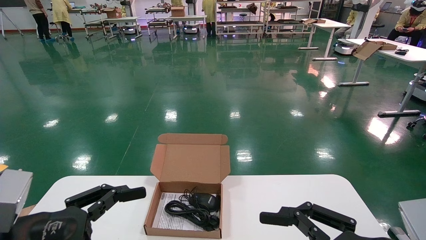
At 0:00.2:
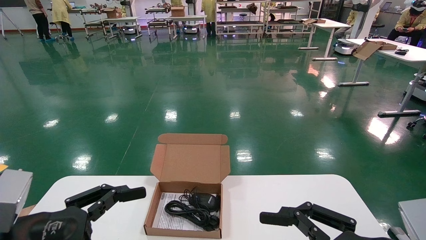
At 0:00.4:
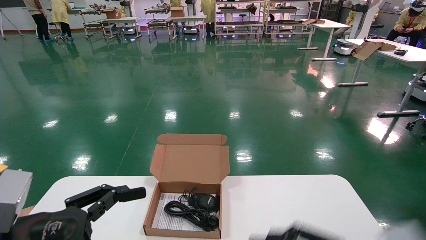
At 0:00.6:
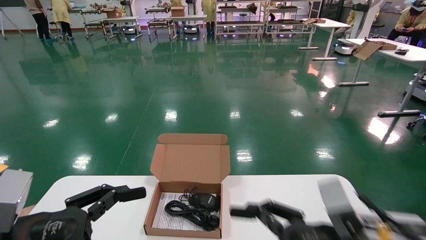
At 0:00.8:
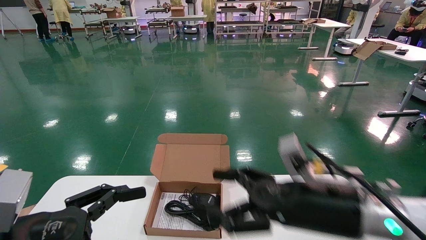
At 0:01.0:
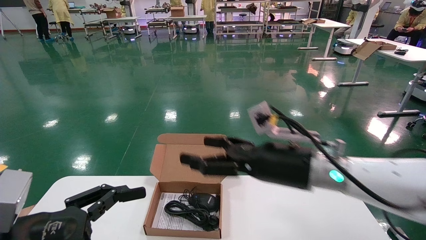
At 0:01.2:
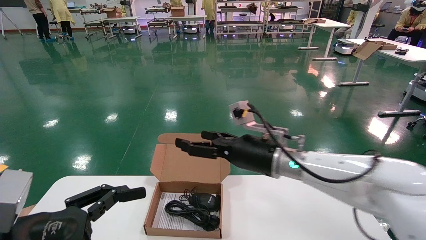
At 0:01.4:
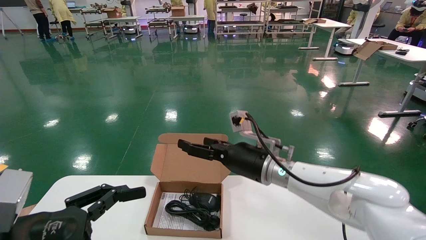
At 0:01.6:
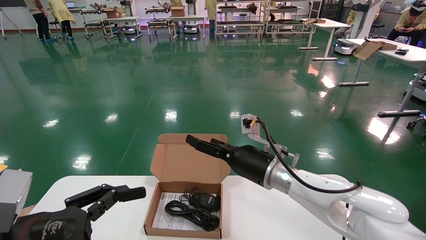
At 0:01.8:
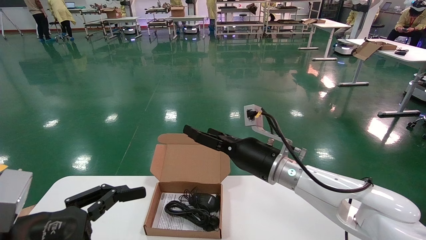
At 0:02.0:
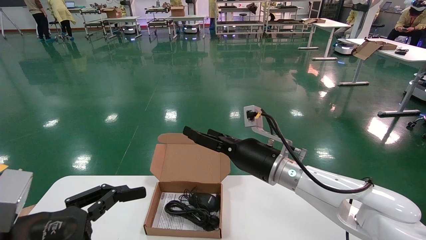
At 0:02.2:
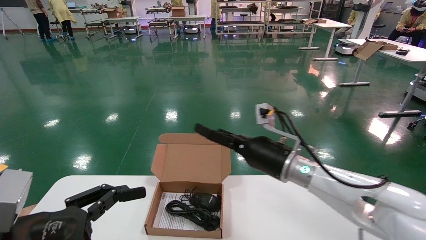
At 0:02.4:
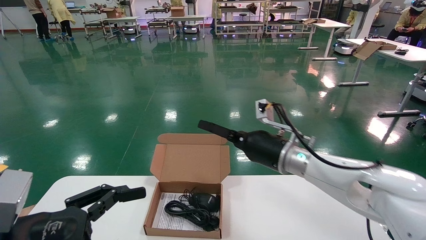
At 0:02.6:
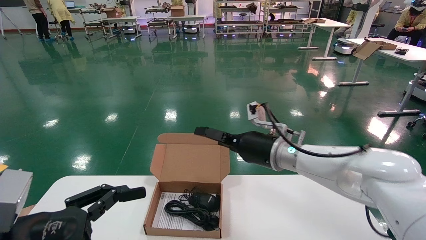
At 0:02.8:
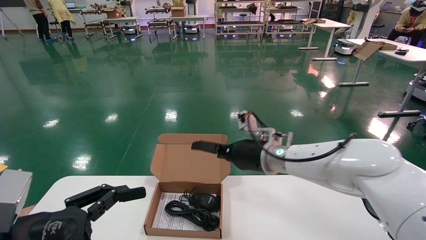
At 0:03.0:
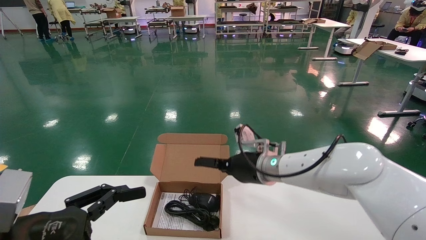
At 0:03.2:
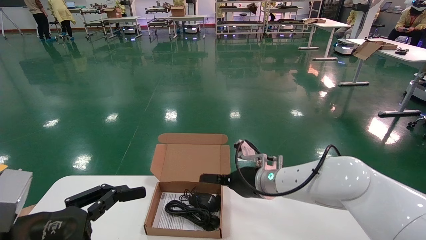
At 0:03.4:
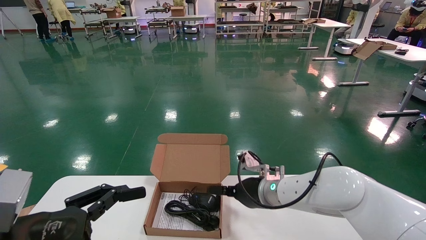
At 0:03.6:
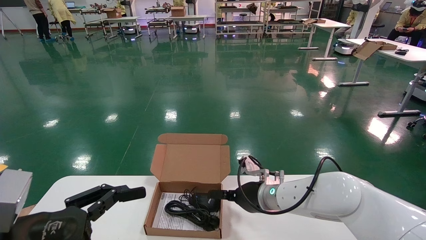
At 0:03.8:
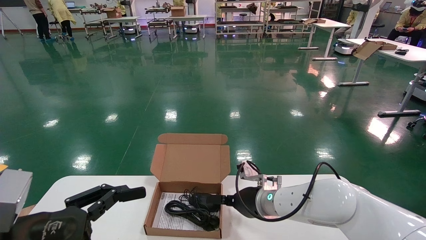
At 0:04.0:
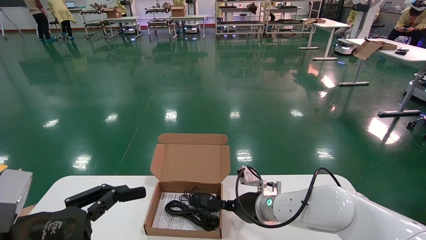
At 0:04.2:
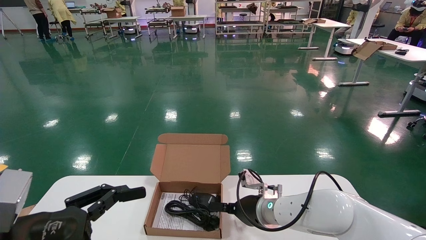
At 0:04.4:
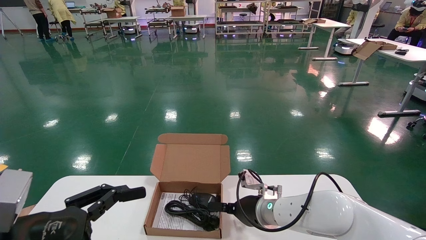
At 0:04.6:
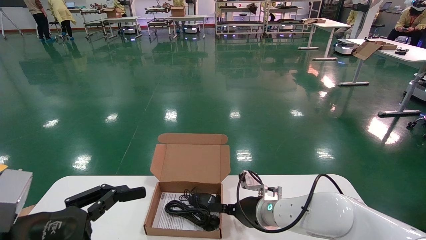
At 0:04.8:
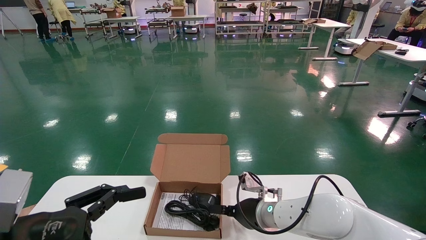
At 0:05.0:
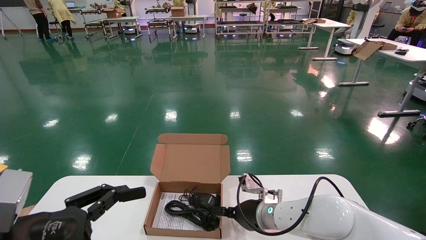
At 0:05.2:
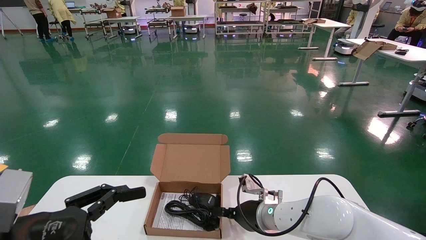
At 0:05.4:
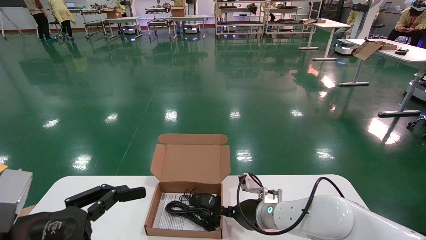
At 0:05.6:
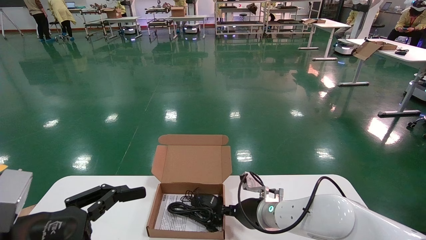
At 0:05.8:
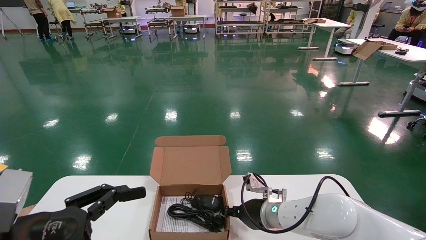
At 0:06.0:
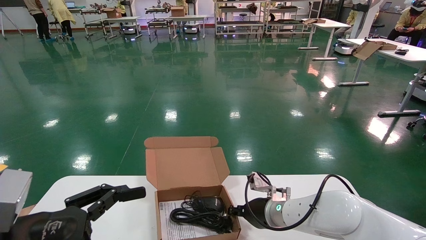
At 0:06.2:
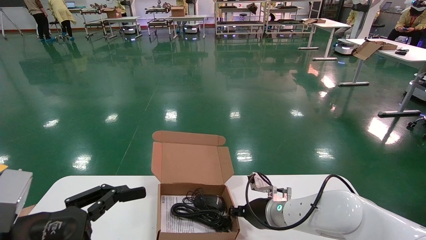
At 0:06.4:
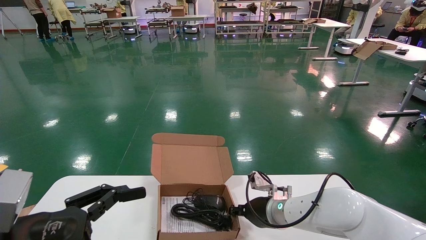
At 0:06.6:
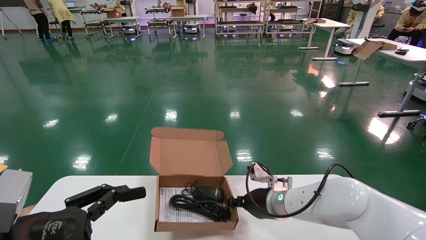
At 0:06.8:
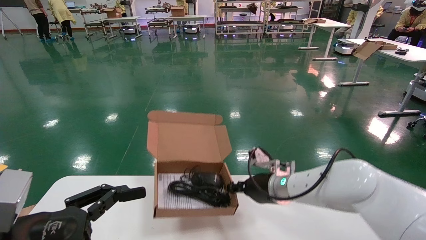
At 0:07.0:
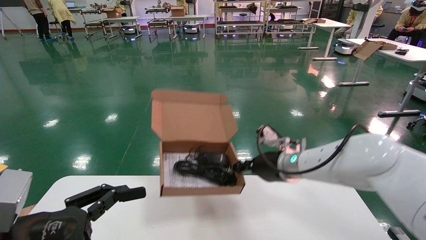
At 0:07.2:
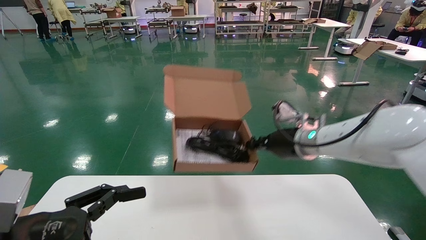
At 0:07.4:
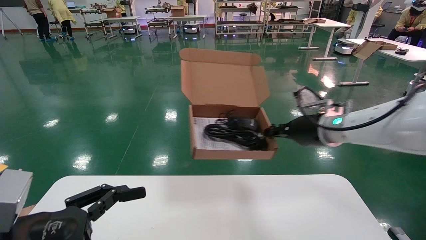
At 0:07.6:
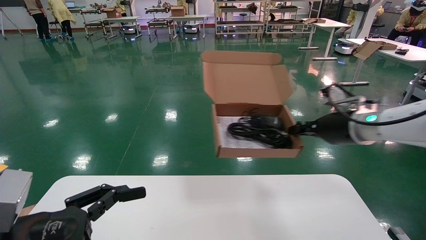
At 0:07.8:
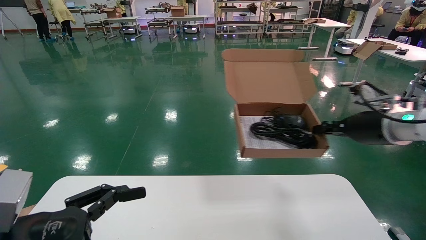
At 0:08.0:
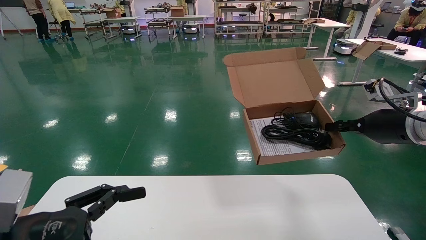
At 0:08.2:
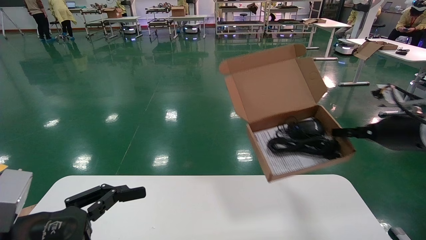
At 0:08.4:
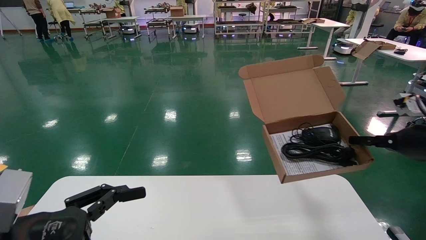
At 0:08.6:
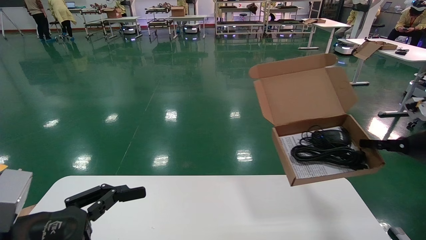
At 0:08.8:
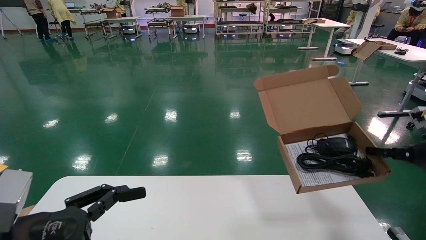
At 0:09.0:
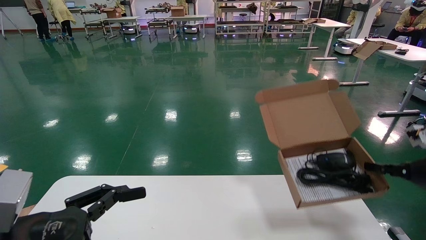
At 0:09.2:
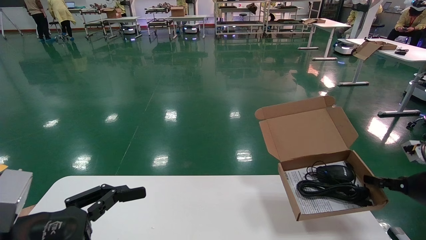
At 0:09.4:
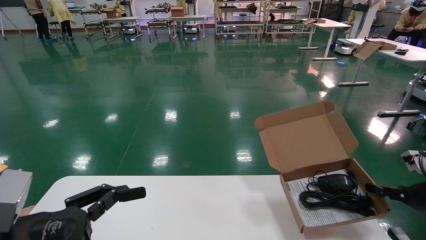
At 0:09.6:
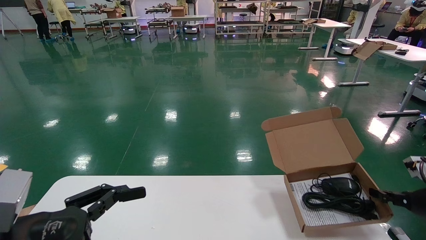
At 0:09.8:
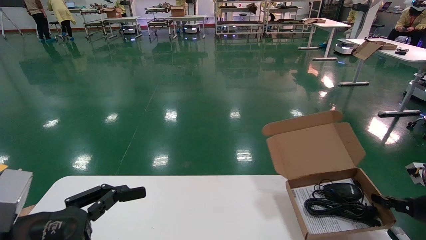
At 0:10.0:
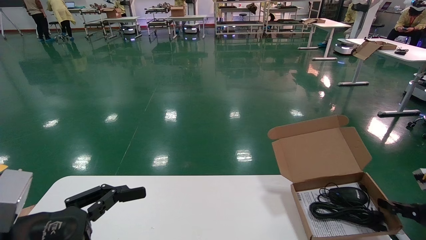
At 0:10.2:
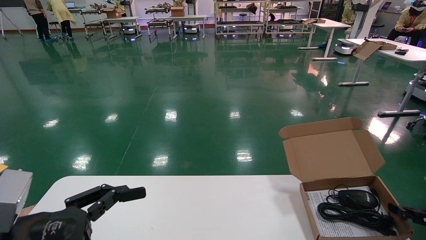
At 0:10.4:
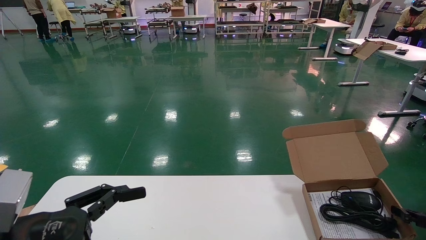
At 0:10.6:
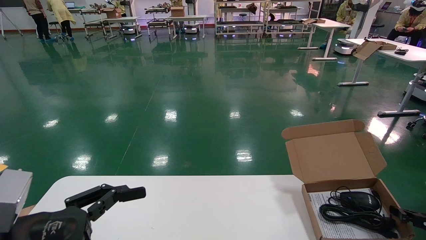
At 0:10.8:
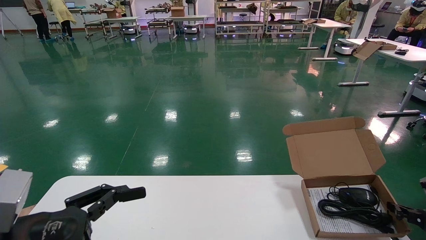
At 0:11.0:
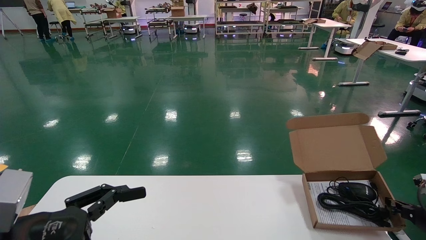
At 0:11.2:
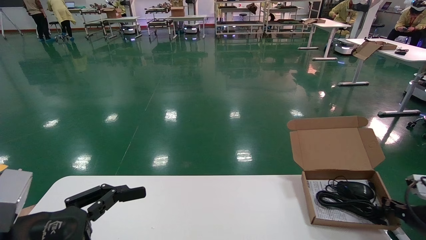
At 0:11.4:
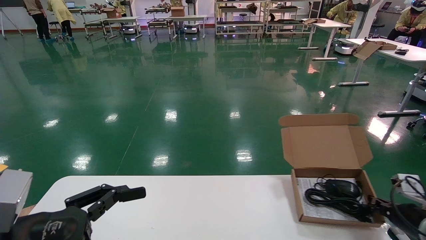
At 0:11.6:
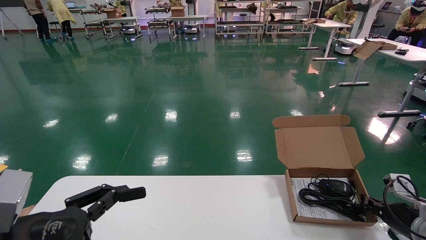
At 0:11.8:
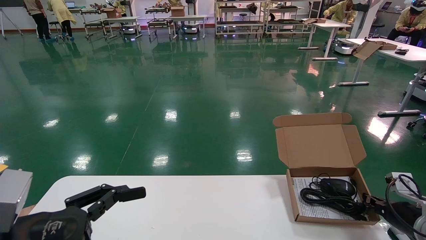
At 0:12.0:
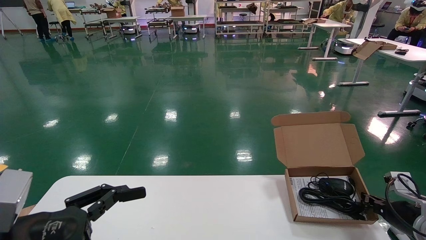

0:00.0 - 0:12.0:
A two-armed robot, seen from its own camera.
Task of the whole recording: move the position of the storage box with accessories on the table.
Step, 0:00.8 - 0:05.8: Grab and pick up the open mouse box from the accessory packaging area.
0:00.0 - 0:01.6: The right gripper moves forward and to the left, about 30 cm.
0:03.0 - 0:04.4: The right gripper shifts approximately 10 cm downward.
0:04.4 - 0:06.0: The right gripper closes up.
0:06.0 - 0:07.6: The right gripper travels upward and to the right by approximately 25 cm.
0:07.6 - 0:09.0: The right gripper travels to the right and downward by approximately 20 cm.
0:09.0 - 0:10.4: The right gripper goes roughly 15 cm downward and to the right.
0:10.4 - 0:12.0: The right gripper is displaced to the left and forward by roughly 10 cm.

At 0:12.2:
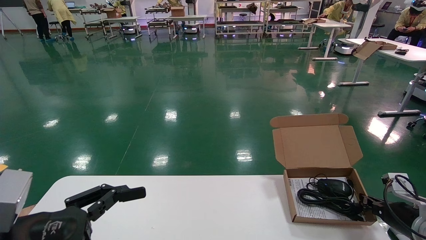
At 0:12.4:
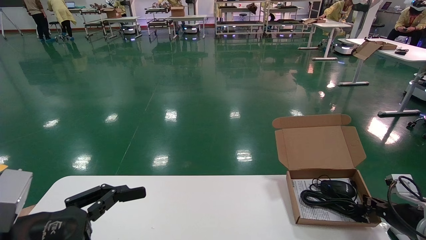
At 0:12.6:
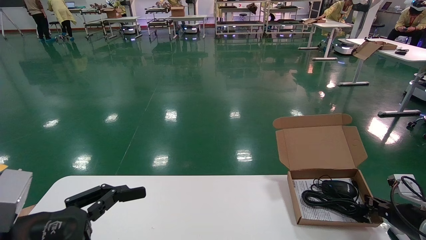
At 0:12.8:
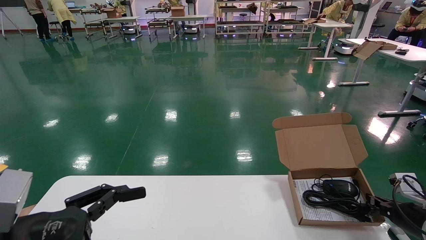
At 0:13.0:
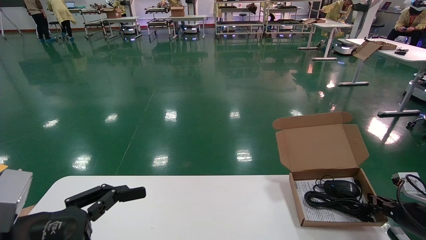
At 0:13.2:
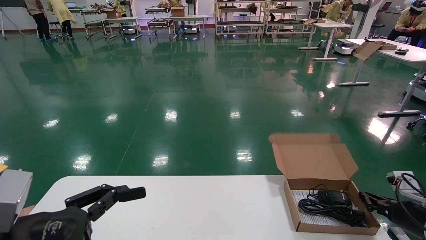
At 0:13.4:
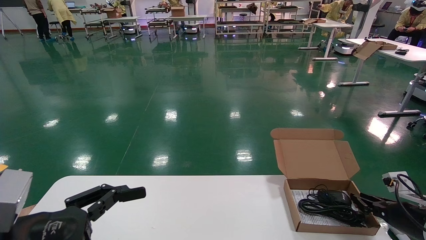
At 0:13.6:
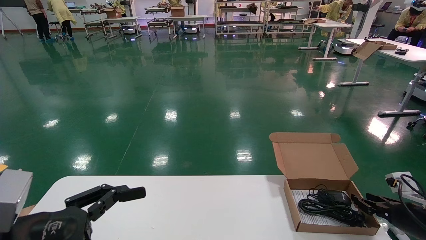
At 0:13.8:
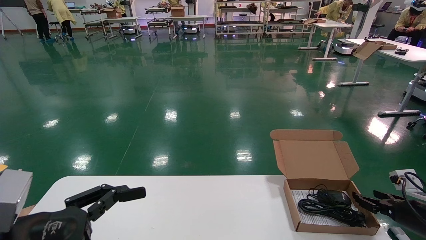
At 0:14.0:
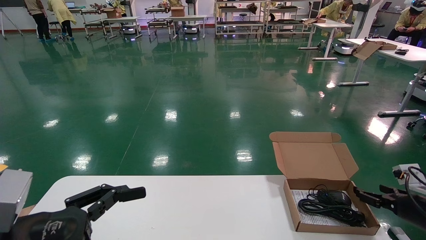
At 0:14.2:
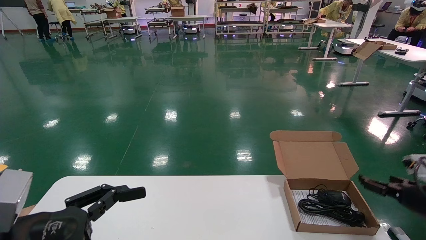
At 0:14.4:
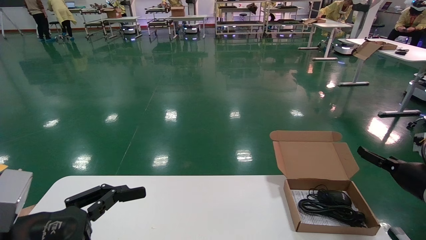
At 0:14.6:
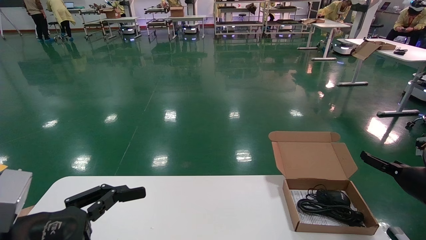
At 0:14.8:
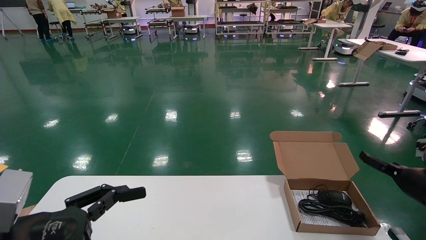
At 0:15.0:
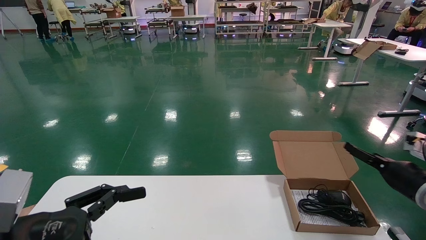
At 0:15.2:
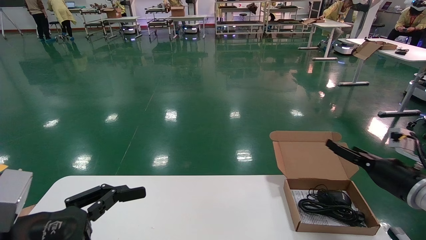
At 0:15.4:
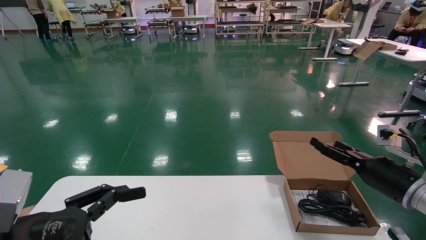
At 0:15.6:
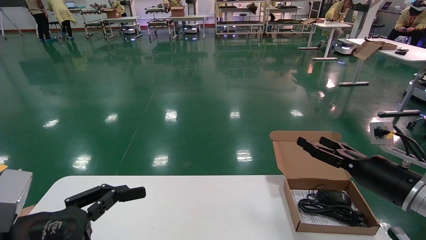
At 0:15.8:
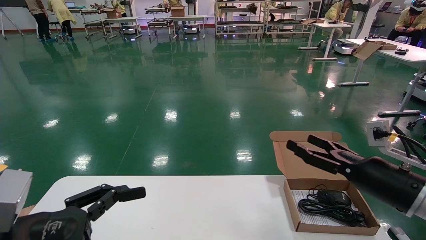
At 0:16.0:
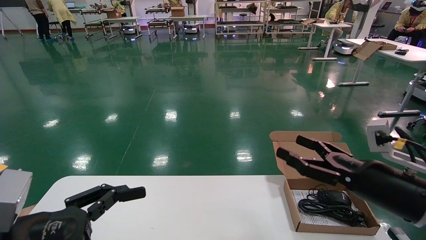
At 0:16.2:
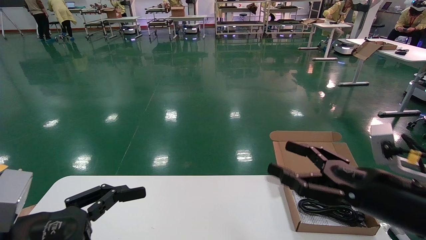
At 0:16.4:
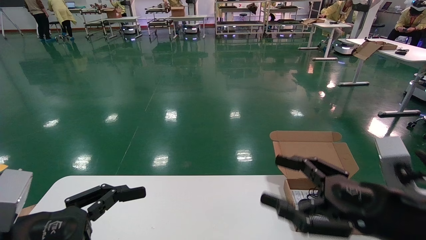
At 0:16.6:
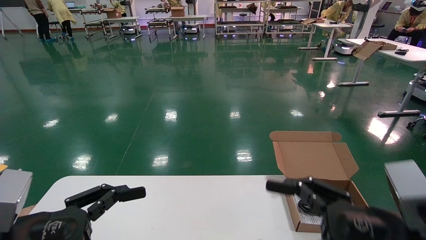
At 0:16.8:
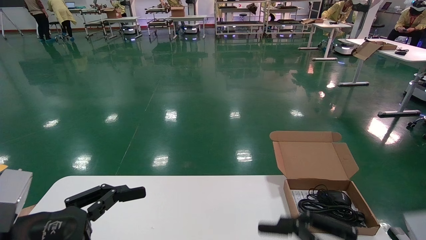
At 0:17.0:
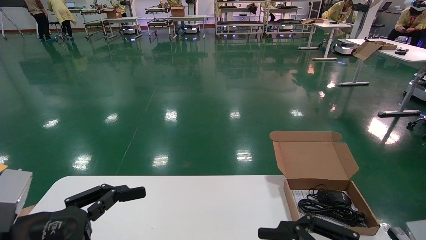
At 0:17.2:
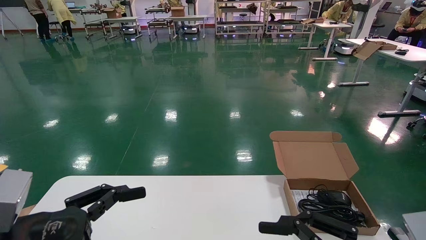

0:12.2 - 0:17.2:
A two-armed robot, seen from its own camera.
Task of the whole recording: move the position of the storage box with accessories on the table.
0:12.2 - 0:13.8: The right gripper opens.
0:13.8 - 0:15.6: The right gripper goes roughly 15 cm to the left and upward, and opens up.
0:15.6 - 0:17.2: The right gripper is displaced backward and to the left by some 25 cm.
